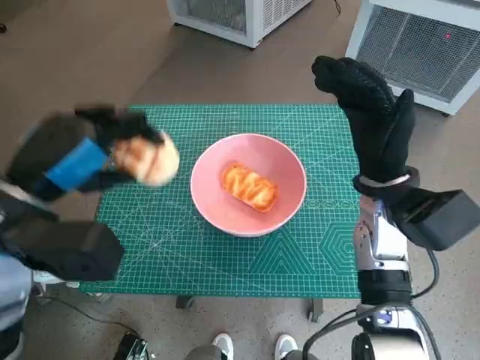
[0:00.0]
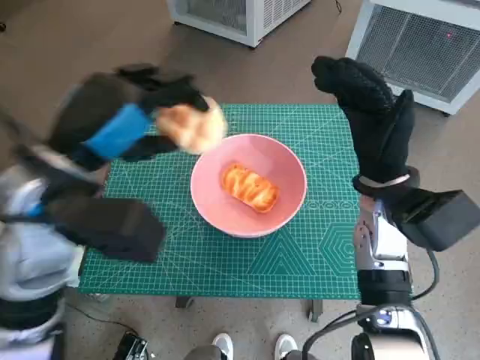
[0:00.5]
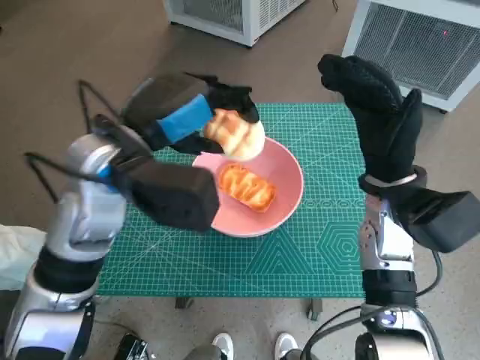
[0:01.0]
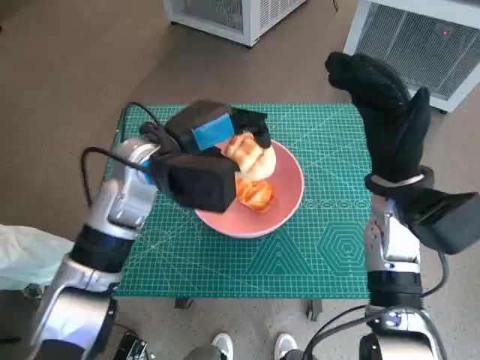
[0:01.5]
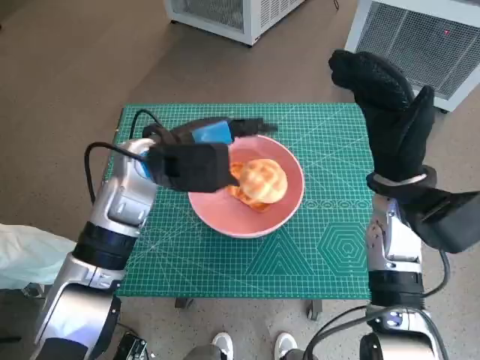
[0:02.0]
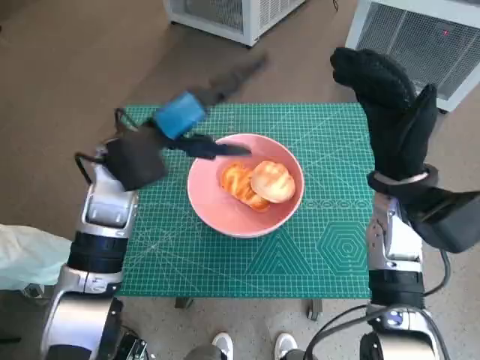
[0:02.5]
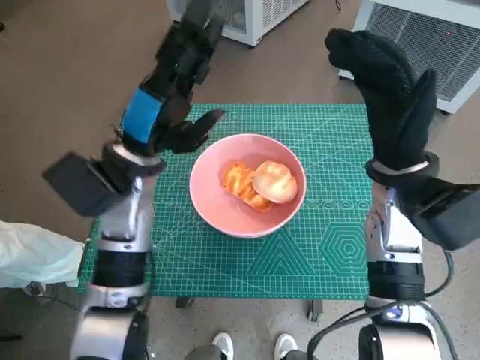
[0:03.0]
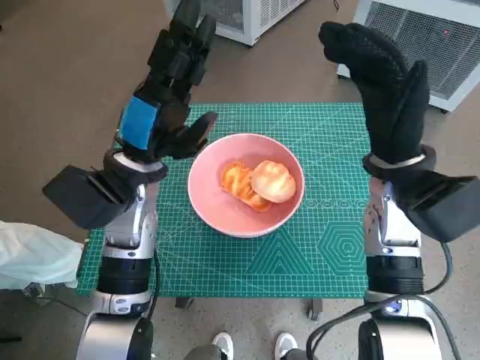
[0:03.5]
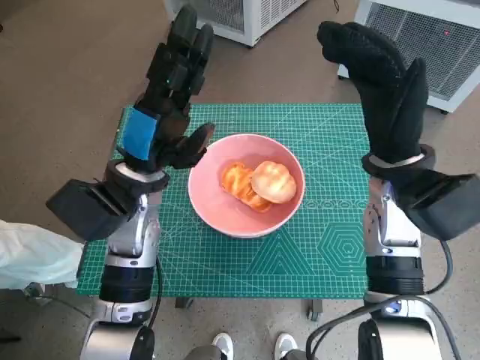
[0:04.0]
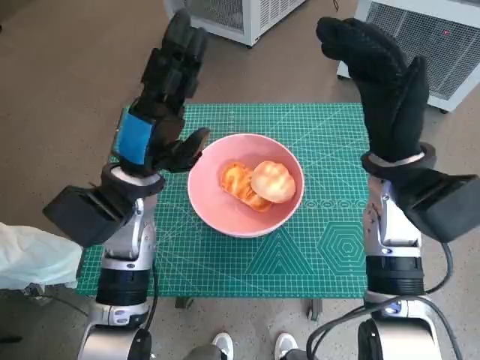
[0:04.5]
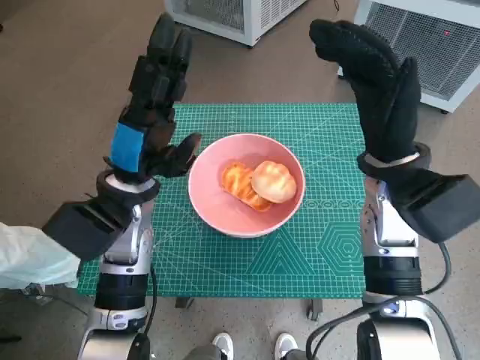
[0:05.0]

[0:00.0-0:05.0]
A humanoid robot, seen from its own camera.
Task of the whole recording: Push the bowl into the center of the table and put the bread into the bowl.
0:00.0 to 0:02.5: The left hand goes about 15 cm forward and to the right.
0:02.5 to 0:05.0: The left hand ends up approximately 5 cm from where it was.
